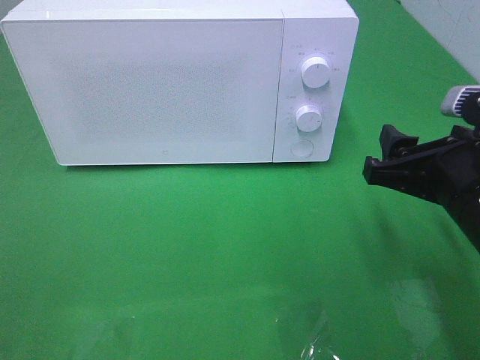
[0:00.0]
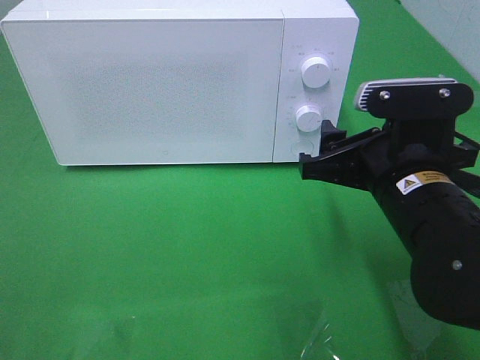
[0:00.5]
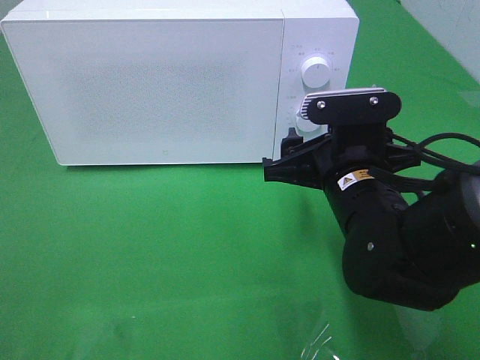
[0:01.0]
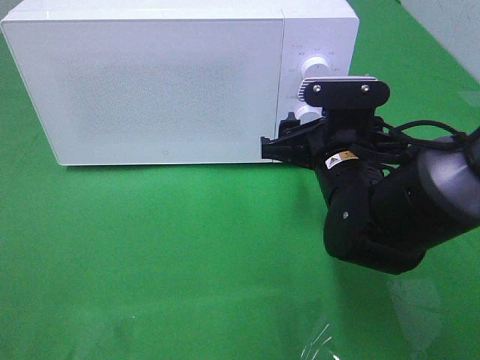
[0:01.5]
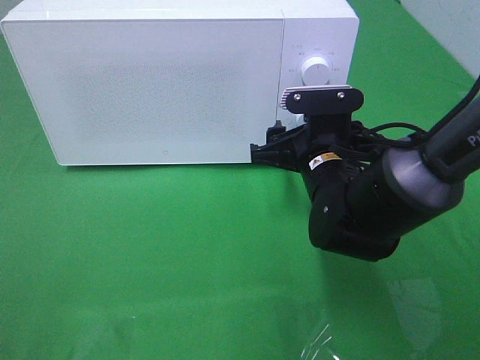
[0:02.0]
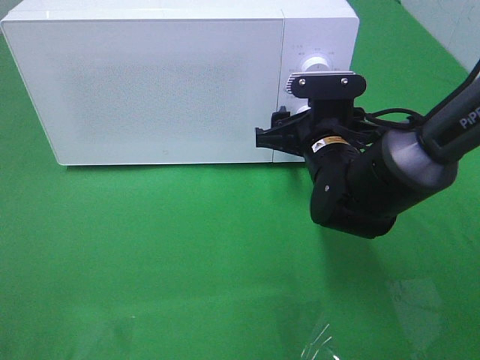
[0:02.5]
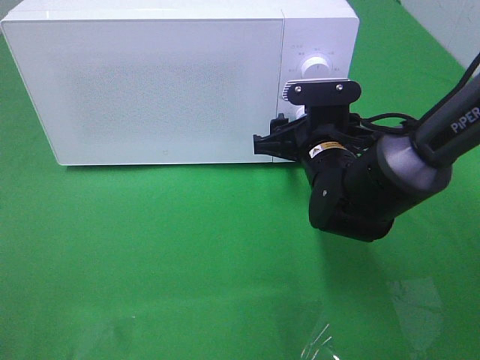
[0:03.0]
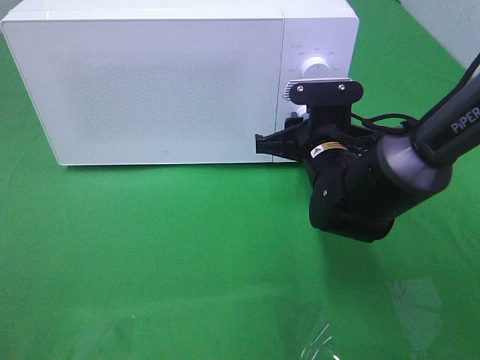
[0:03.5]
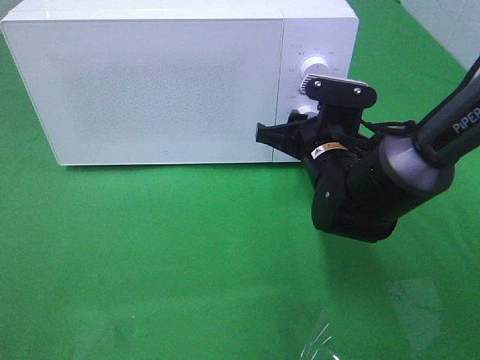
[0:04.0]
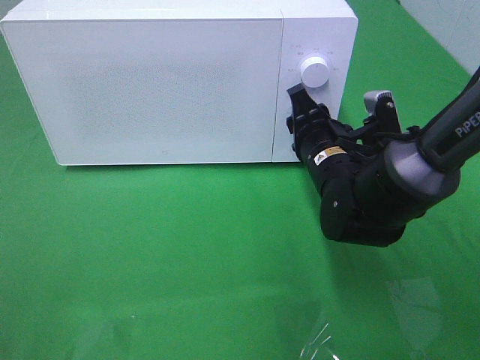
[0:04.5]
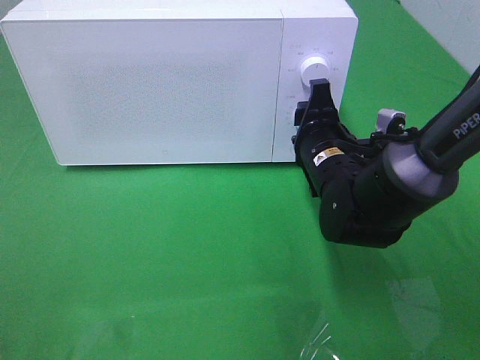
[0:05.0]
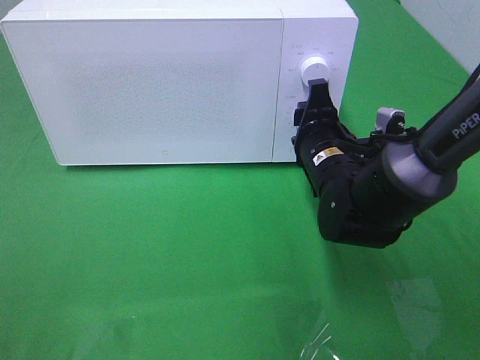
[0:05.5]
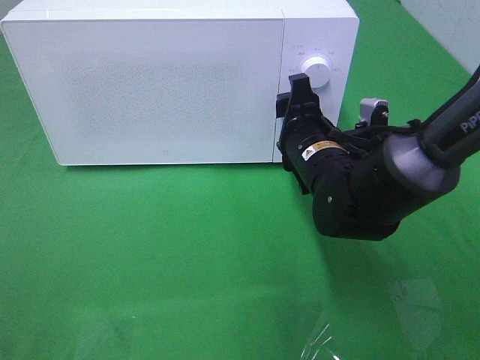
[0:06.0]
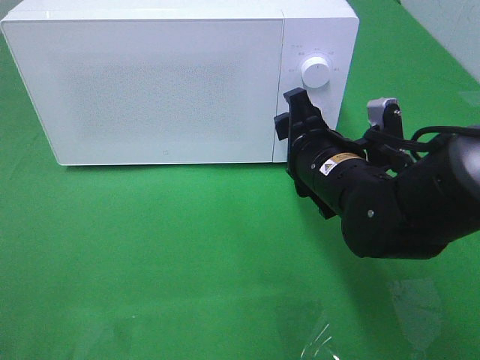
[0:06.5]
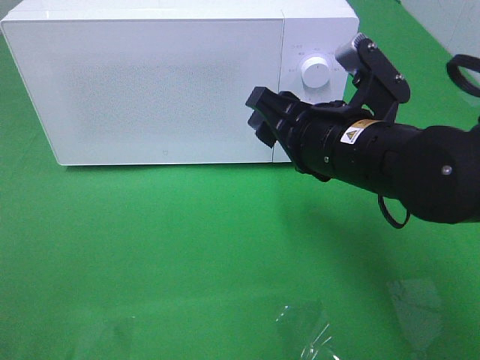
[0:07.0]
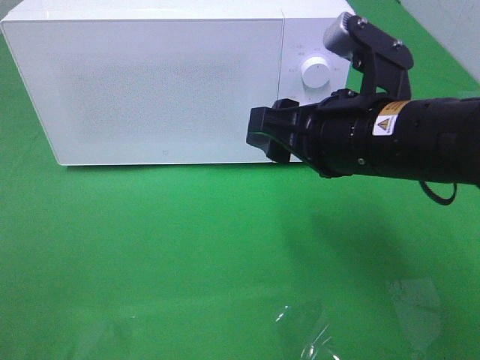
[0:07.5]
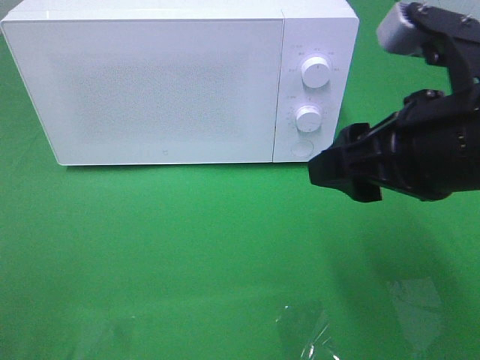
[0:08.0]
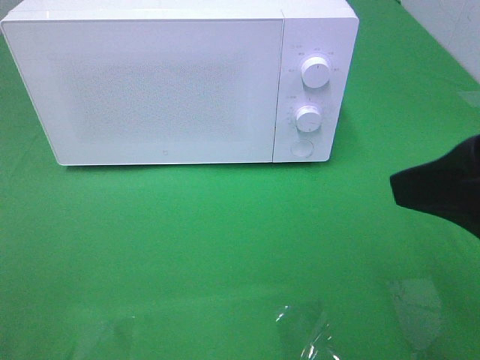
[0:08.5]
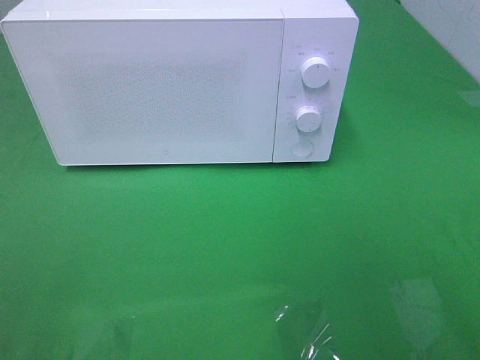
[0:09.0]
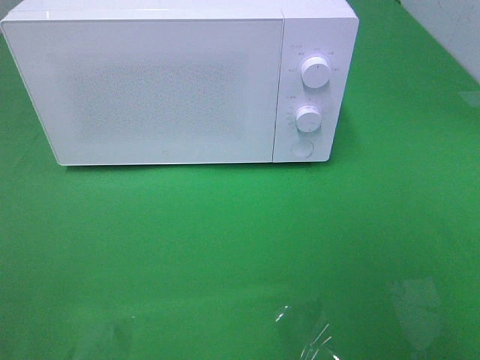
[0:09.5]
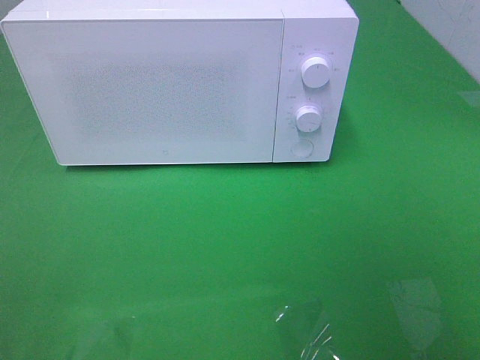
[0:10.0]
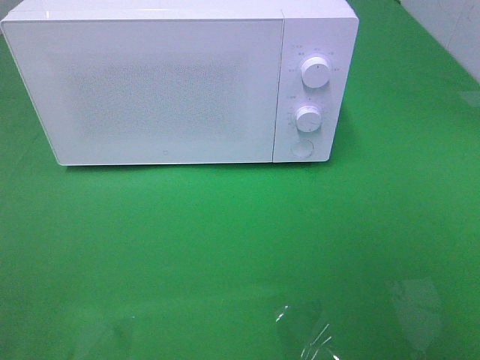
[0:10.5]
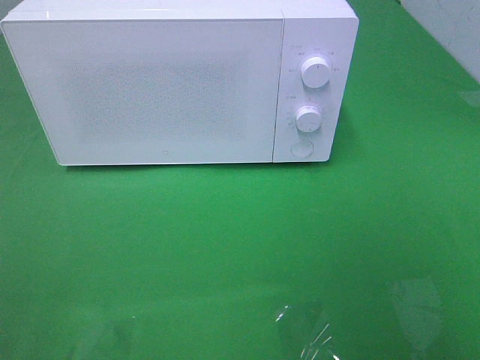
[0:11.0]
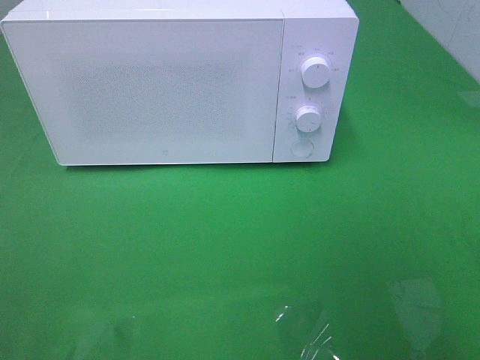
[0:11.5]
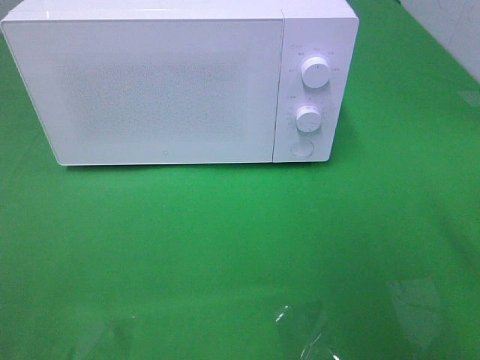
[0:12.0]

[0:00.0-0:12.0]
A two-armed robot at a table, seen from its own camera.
Task of the whole recording: Heat the burger.
Step, 0:00.0 to 0:06.0: Right hand: twist timer button.
0:00.0 to 0:02.0: The right gripper moves forward, to the left and downward, some 15 cm.
0:02.0 to 0:04.0: The right gripper closes up.
0:06.0 to 0:08.0: The right gripper travels upward, backward and to the right by about 20 cm.
0:08.0 to 0:10.0: The right gripper is displaced backward and to the right by some 20 cm.

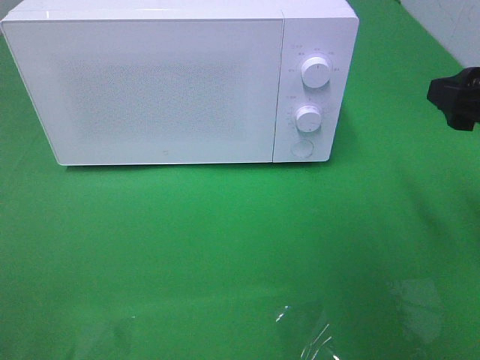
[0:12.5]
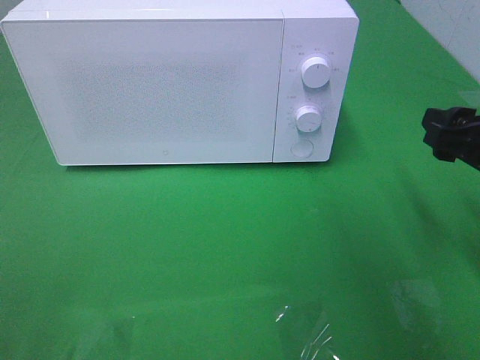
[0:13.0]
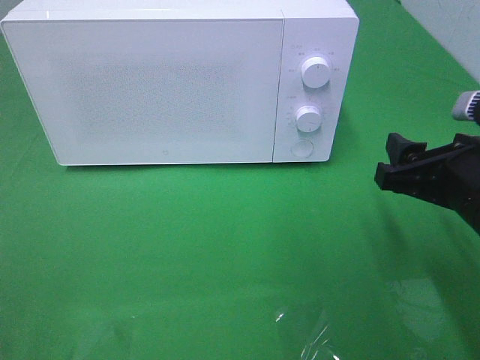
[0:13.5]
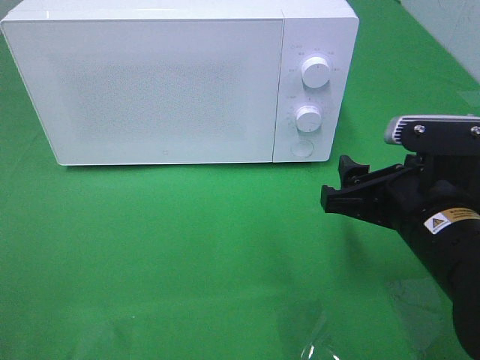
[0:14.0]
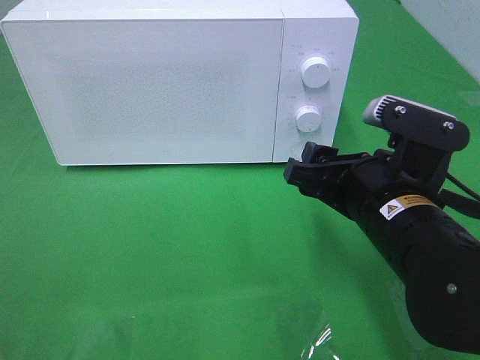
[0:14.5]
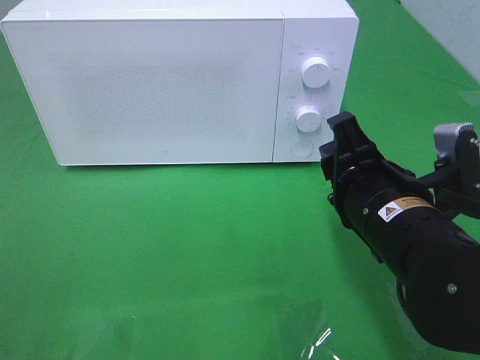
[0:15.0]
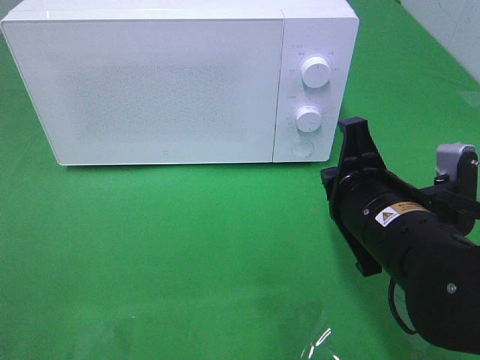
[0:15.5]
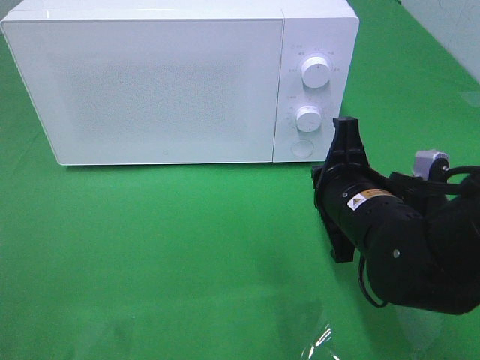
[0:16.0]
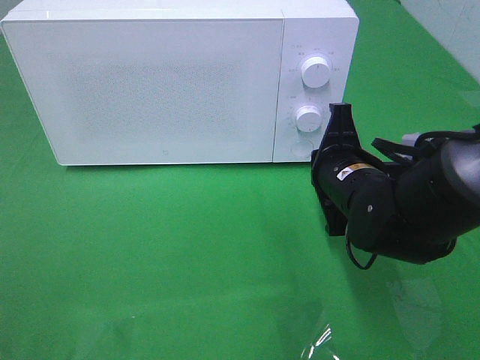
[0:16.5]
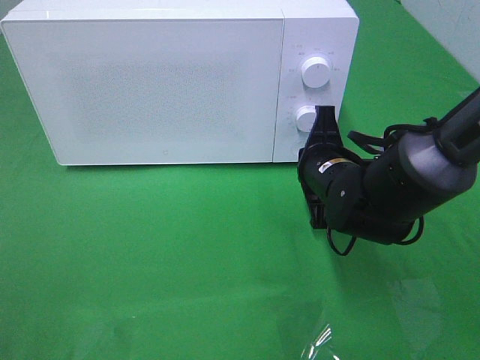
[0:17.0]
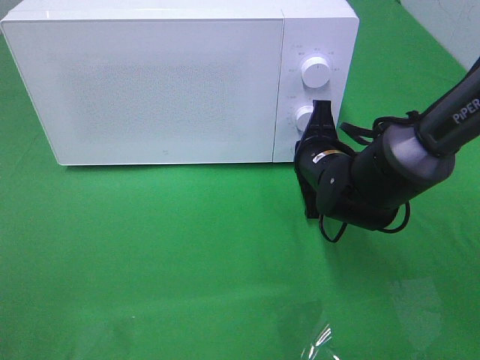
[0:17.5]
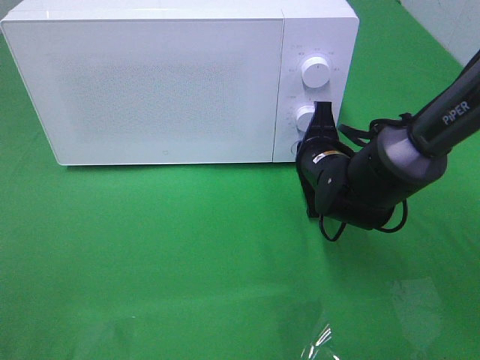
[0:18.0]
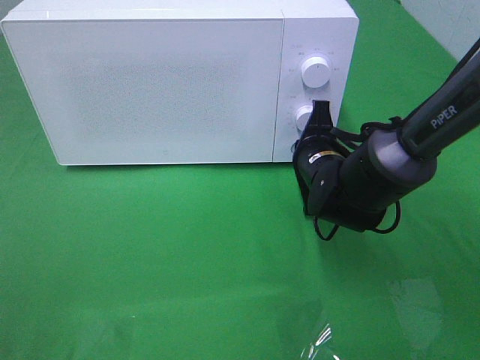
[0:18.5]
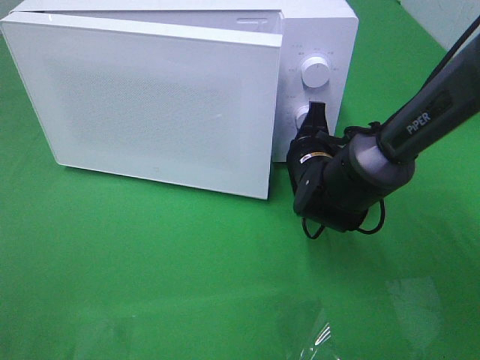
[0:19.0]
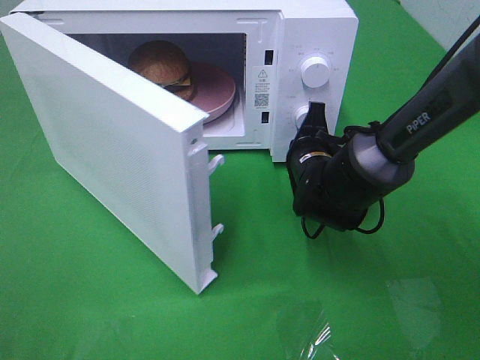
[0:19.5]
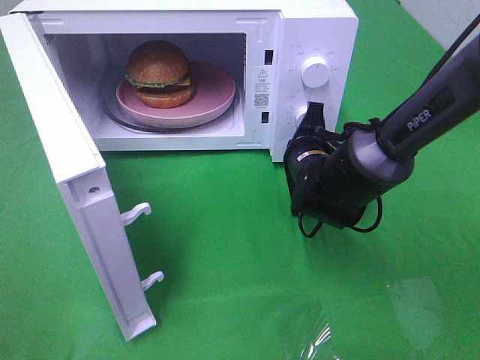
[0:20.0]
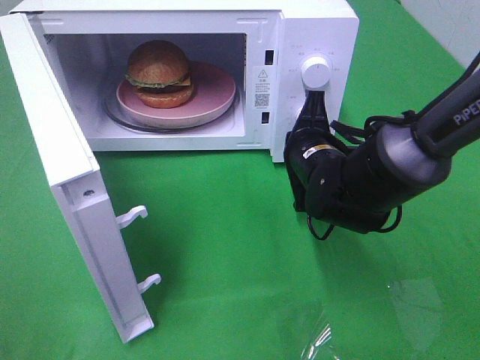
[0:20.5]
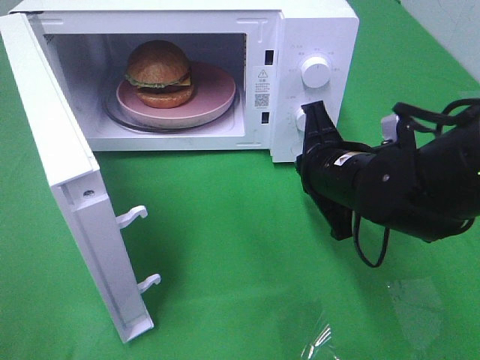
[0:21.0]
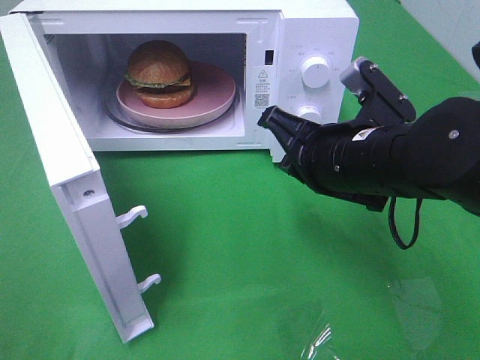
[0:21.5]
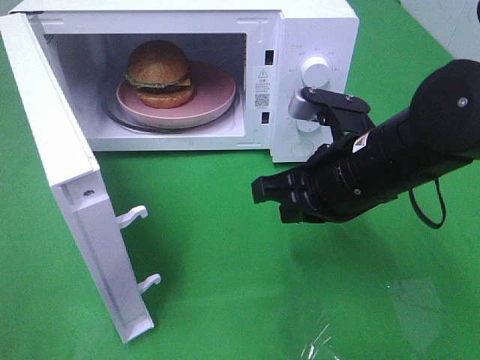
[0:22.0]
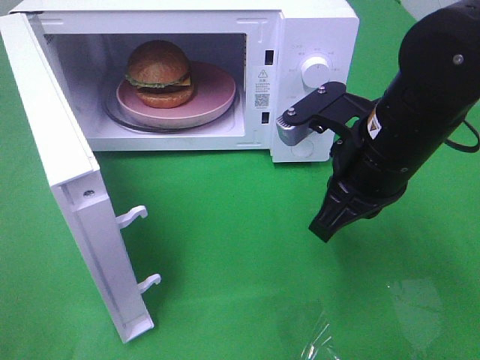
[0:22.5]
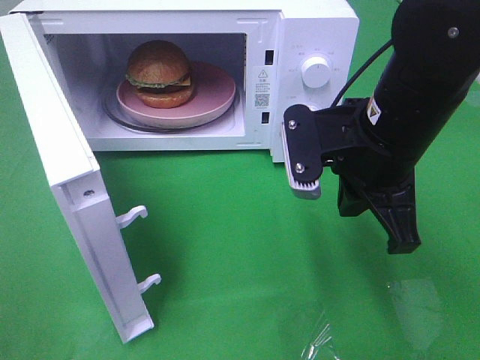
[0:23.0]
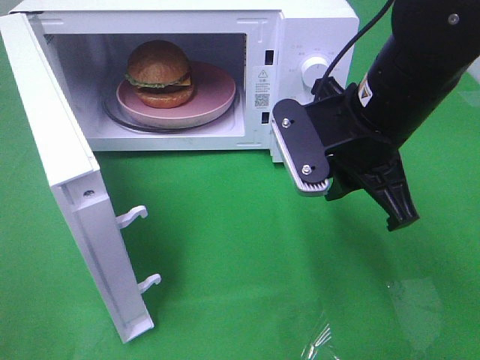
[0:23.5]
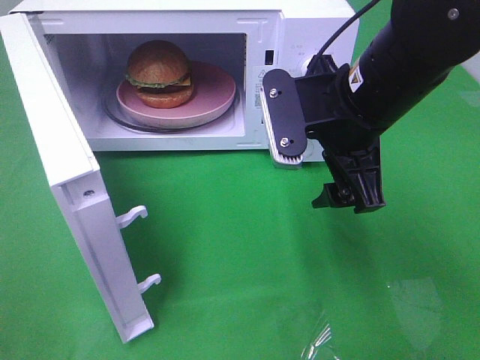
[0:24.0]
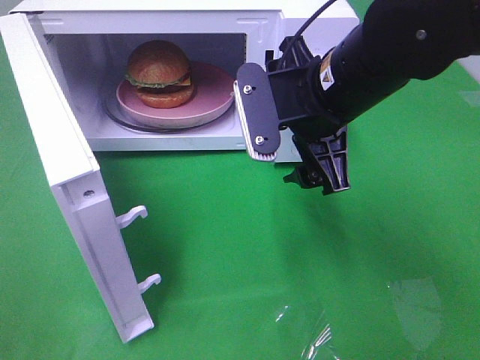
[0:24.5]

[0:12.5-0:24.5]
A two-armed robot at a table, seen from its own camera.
Task of the whole recording: Heat the burger.
Step, 0:12.5 to 0:20.5: Right hand: press the switch.
0:12.5 to 0:14.5: The right gripper travels to the left and downward by about 15 cm.
0:14.5 to 0:16.5: The right gripper moves forward, approximately 10 cm, and closes up.
0:16.5 to 0:18.5: The right gripper shifts some 5 cm forward.
0:20.5 to 0:22.5: The right gripper moves upward and backward, some 10 cm.
0:22.5 to 0:24.5: The right gripper ends up roughly 5 cm from where it was, and opens up.

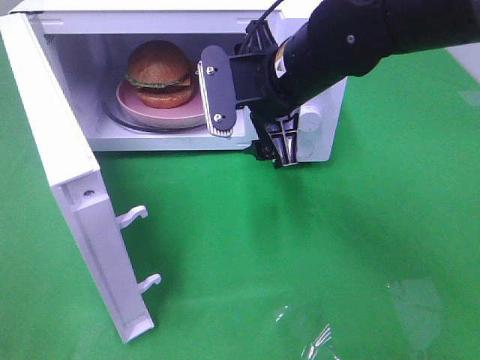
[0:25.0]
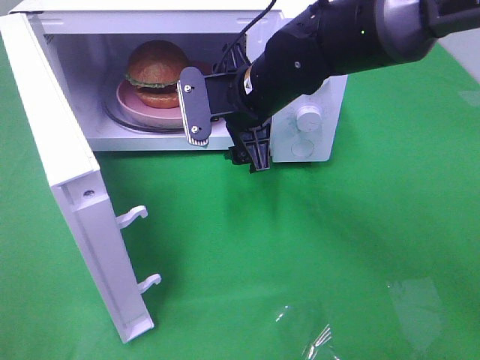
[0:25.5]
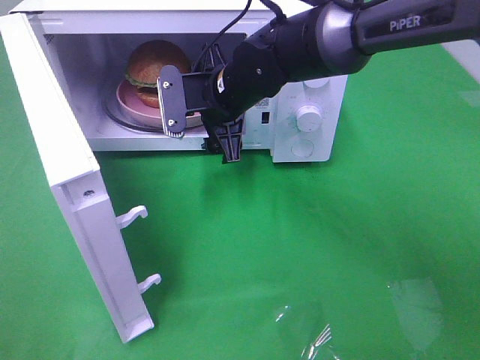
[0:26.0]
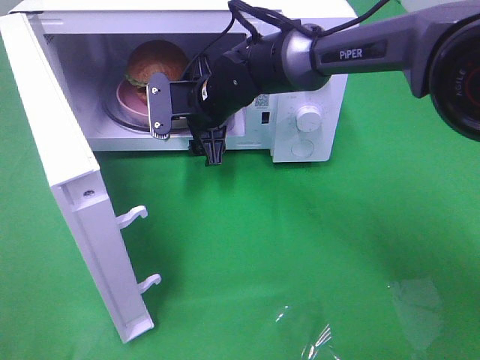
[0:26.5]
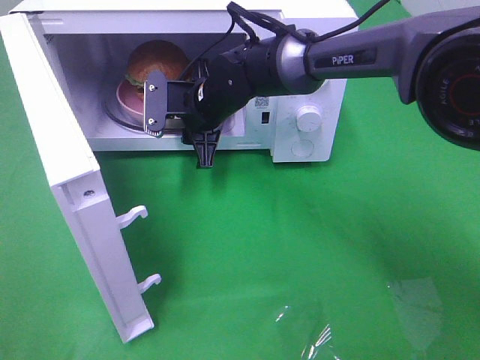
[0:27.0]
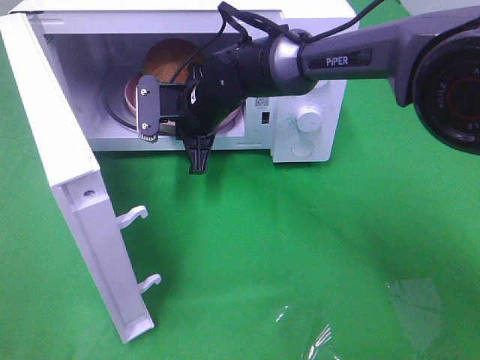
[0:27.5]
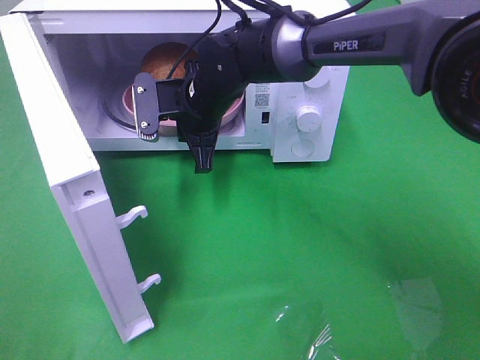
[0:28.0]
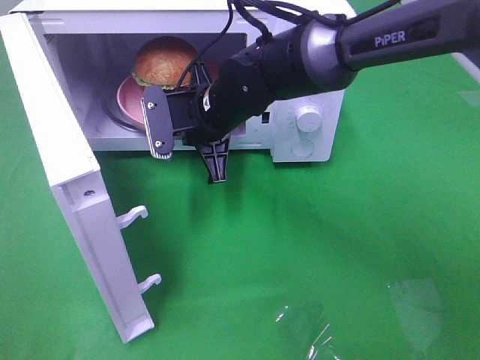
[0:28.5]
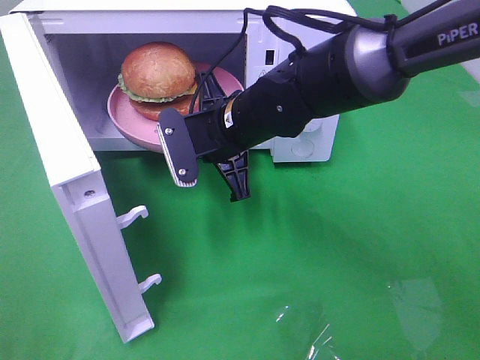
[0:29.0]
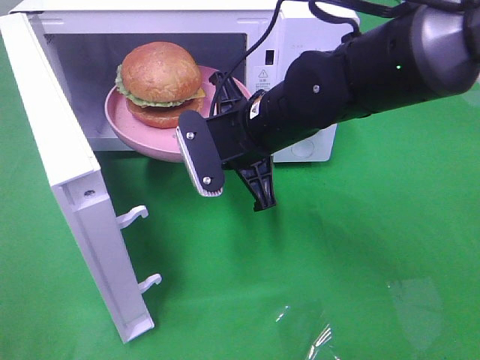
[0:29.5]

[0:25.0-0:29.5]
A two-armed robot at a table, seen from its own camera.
Task of the whole recording: Heat the burger.
Step, 0:25.0 to 0:27.5: Right hand: grab the plate with the hamburger.
0:25.0 to 0:27.0: The right gripper shifts roughly 15 cm forward, downward and to the left, and closes.
0:27.0 to 0:29.5: The right gripper moves backward and to the right, roughly 15 cm, and closes up.